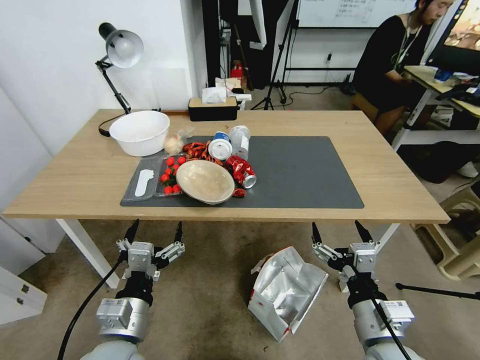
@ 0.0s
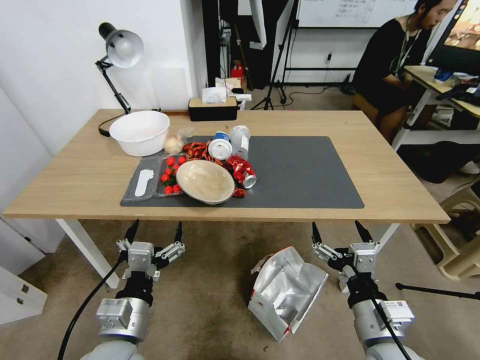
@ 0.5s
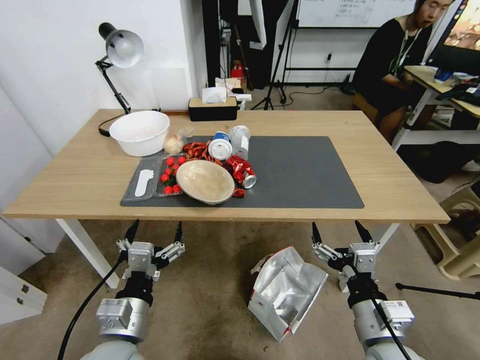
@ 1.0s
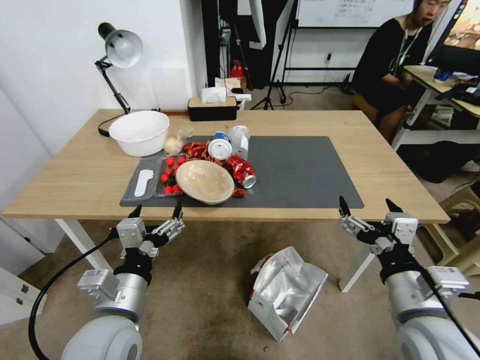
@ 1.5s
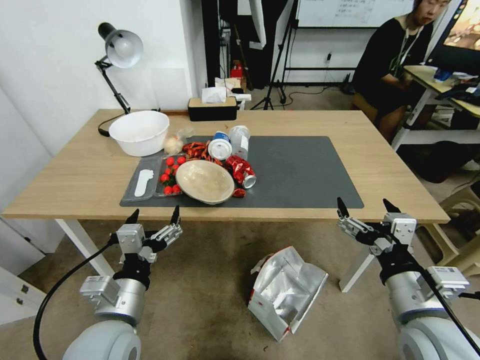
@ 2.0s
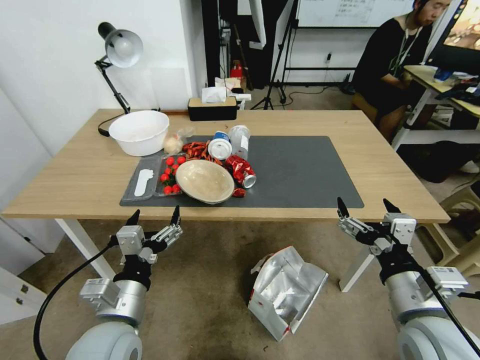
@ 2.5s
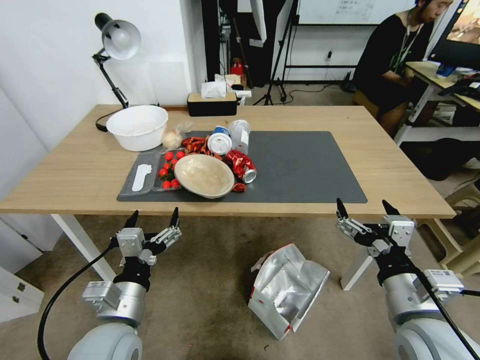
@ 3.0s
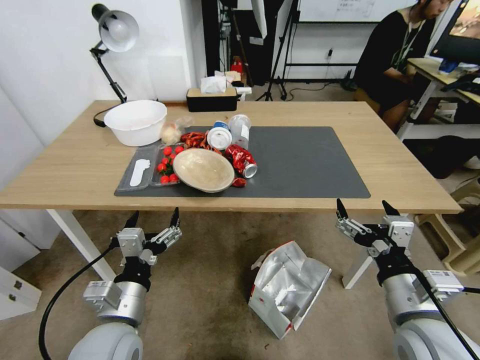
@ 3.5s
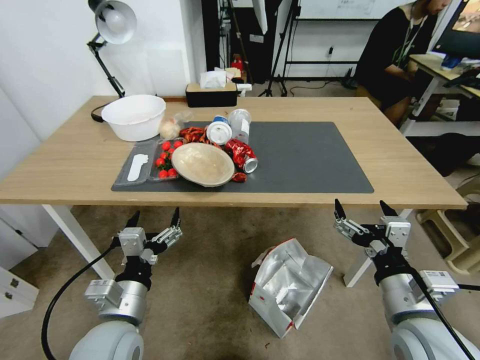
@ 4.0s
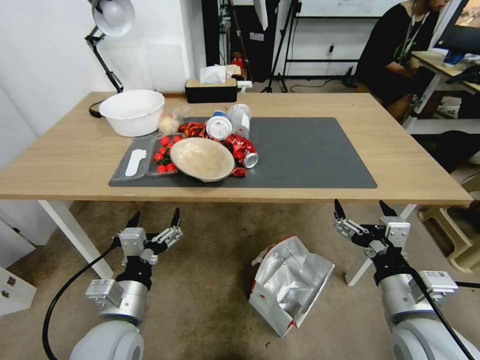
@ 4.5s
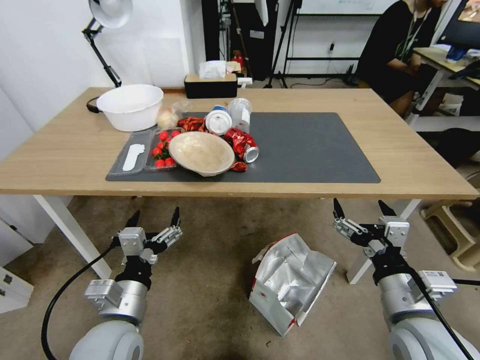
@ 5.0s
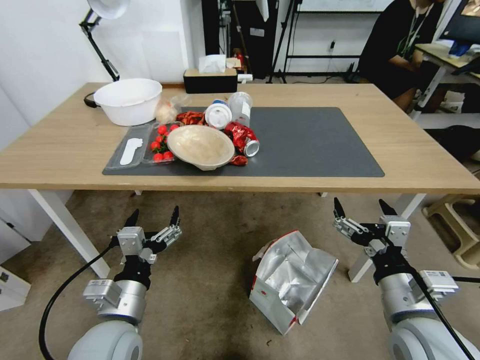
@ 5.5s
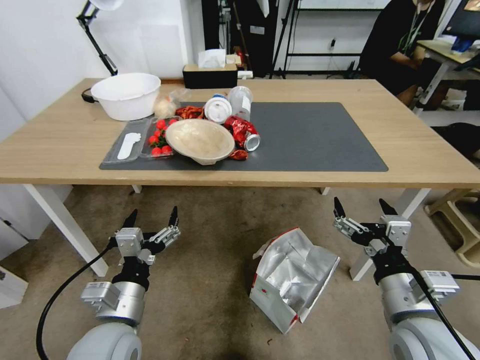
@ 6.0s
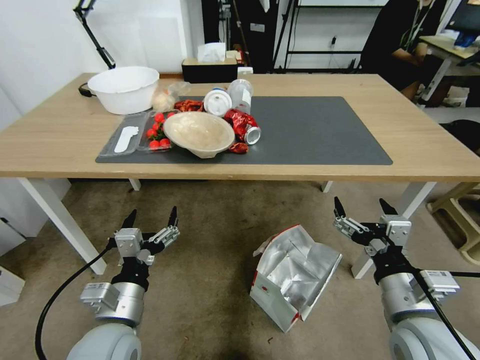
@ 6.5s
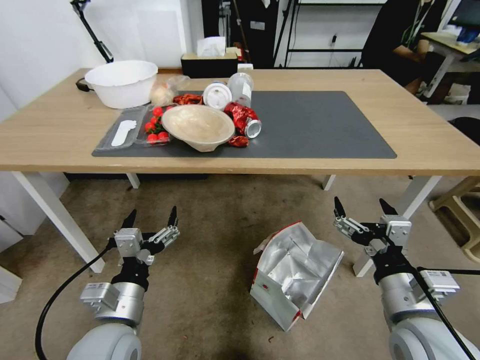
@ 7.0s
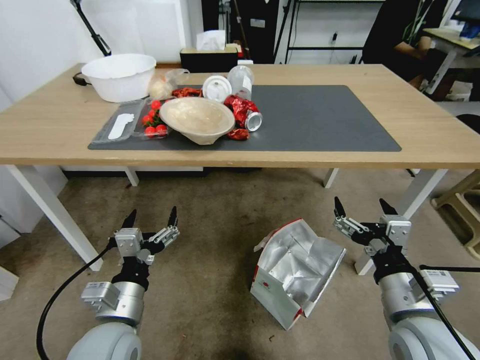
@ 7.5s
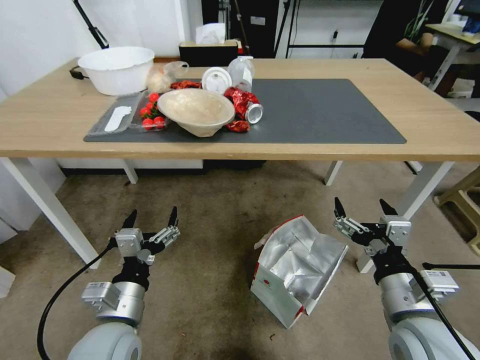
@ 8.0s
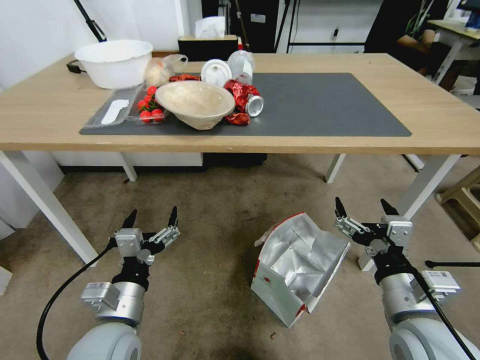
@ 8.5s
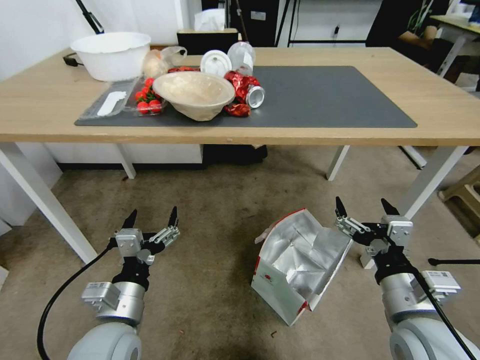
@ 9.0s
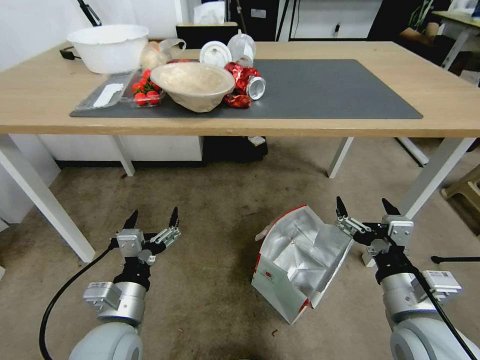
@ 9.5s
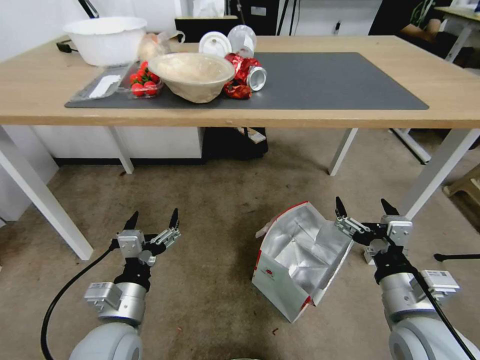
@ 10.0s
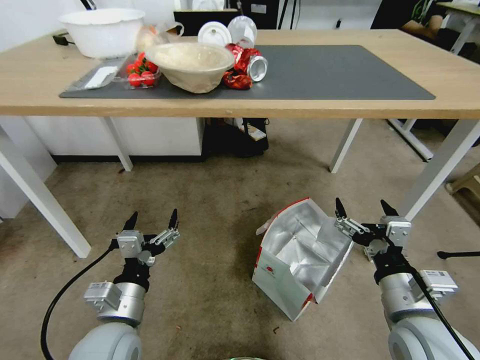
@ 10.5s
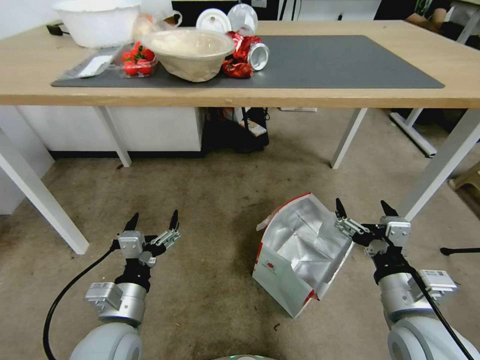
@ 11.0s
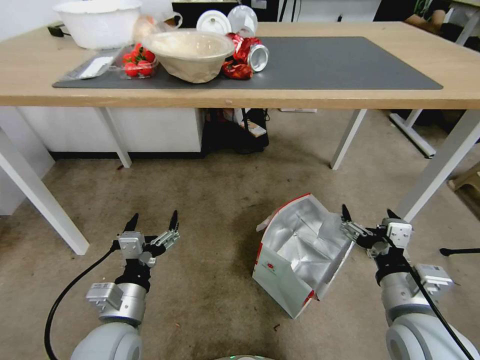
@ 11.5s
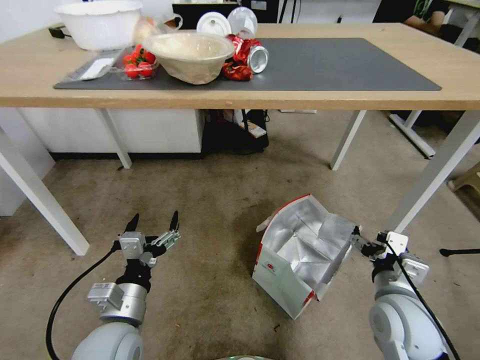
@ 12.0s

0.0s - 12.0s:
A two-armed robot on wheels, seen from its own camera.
Task of the whole recording: Pick up the food delivery bag from the floor and place it on the table.
10.0s - 12.0s: The right gripper ends up about 5 cm from where it was.

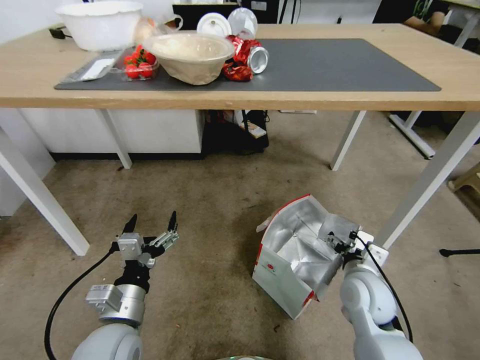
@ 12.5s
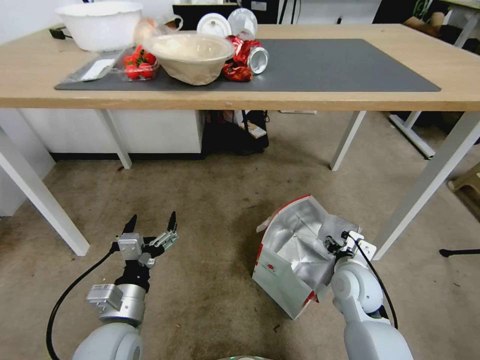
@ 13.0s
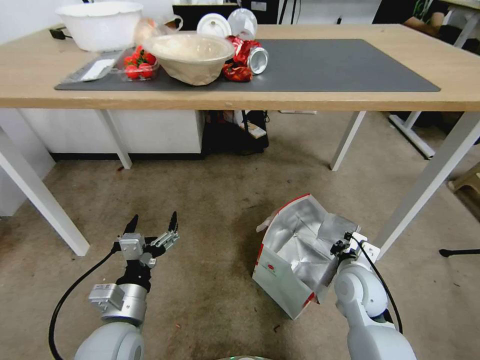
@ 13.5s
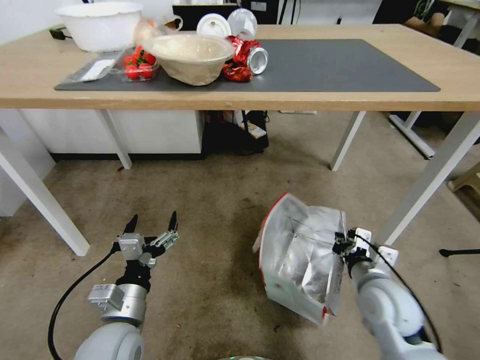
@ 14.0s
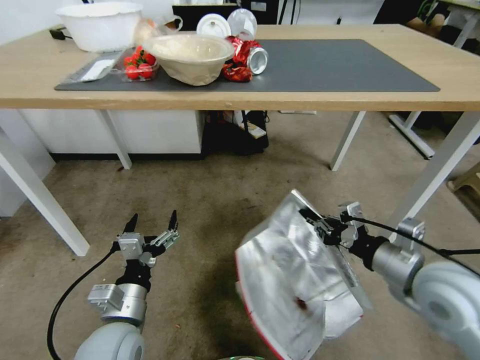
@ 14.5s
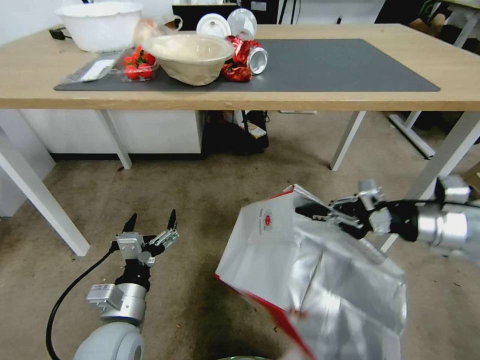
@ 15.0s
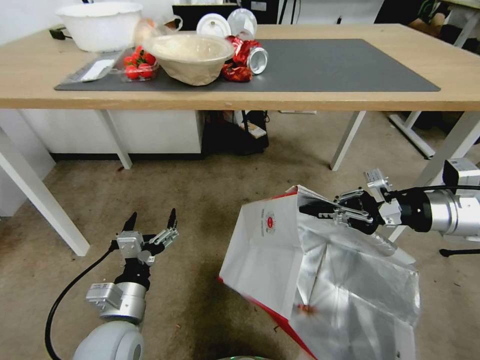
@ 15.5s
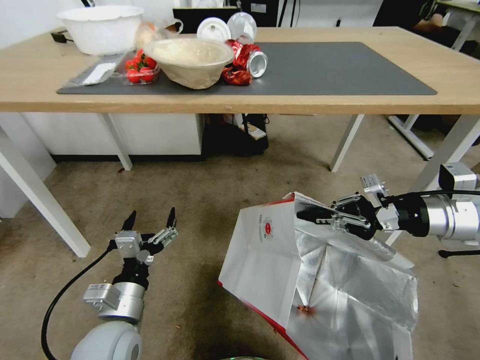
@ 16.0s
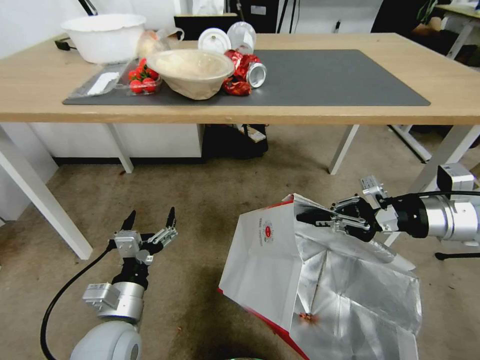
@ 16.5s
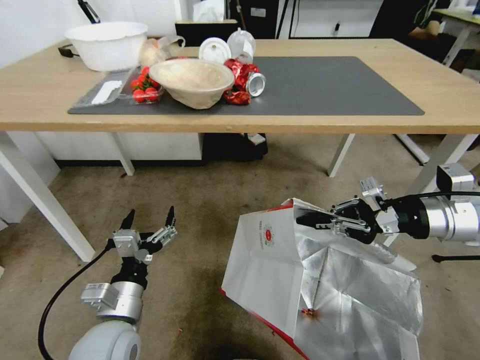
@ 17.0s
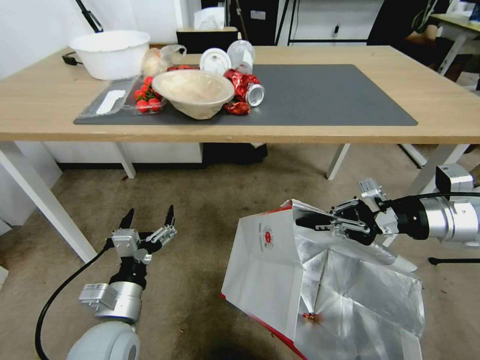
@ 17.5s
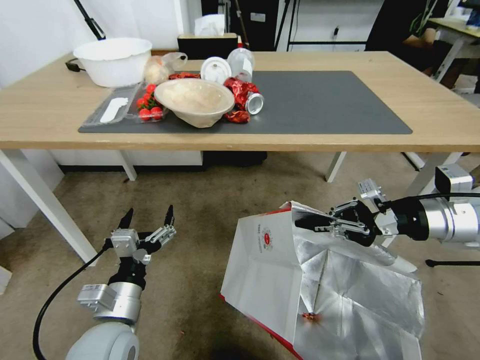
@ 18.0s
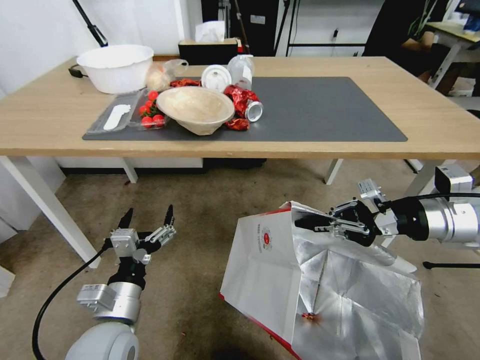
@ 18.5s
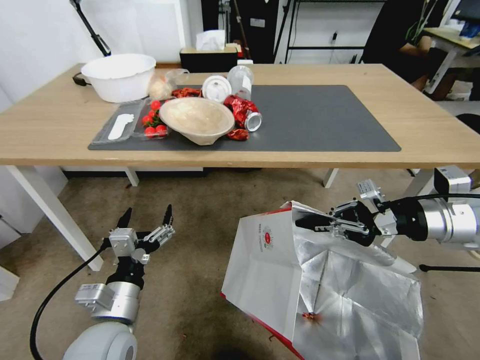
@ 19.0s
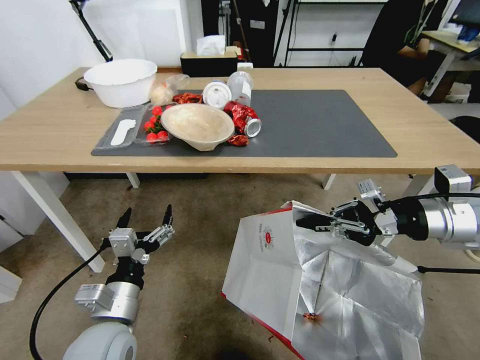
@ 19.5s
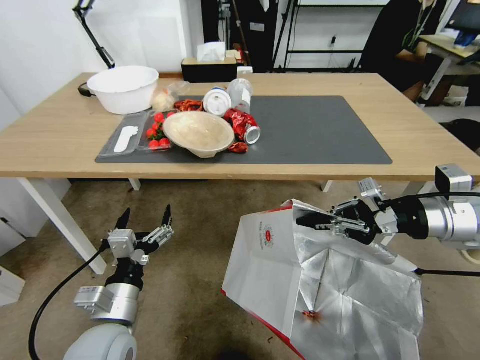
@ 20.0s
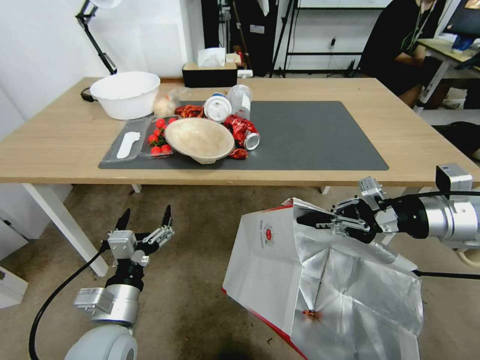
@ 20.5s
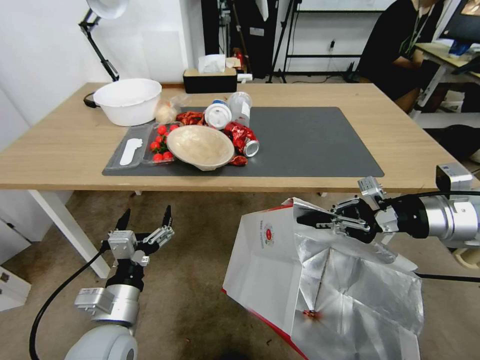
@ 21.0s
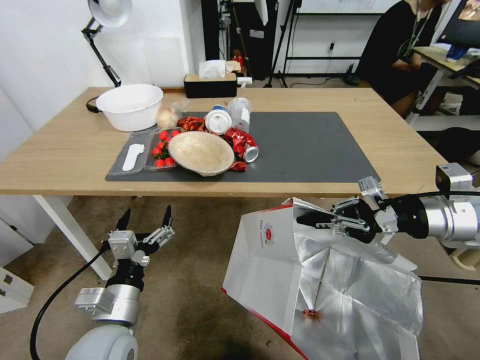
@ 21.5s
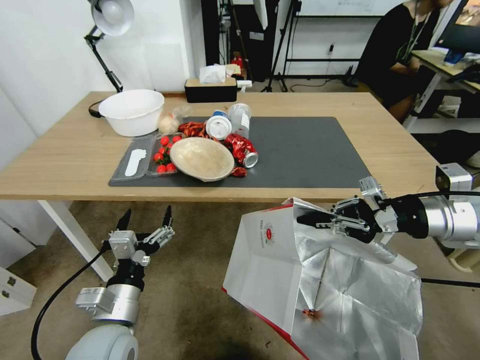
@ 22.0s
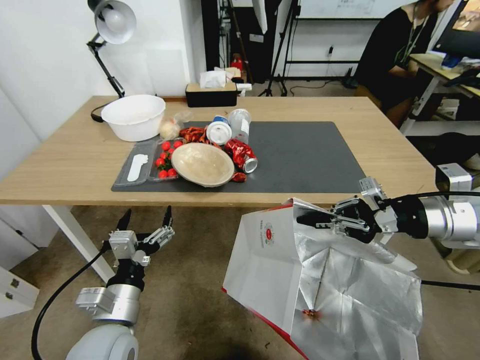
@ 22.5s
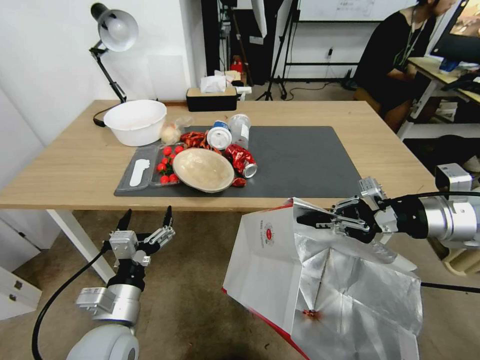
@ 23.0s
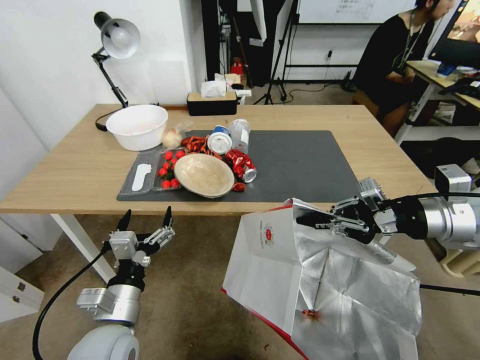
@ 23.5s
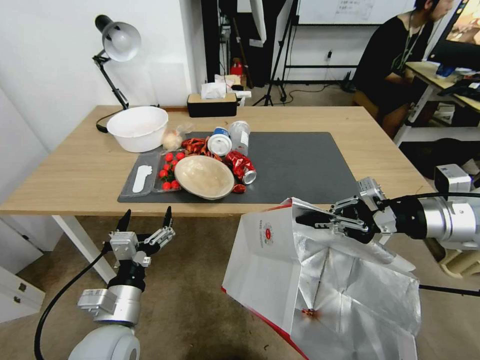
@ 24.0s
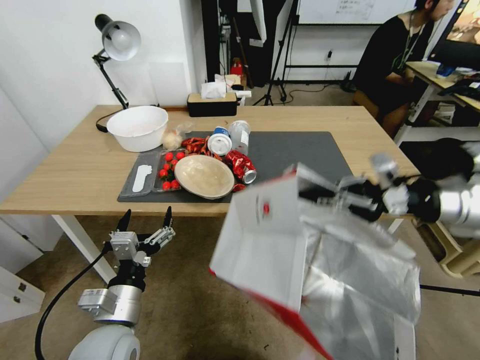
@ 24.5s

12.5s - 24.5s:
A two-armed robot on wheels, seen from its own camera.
Task of the whole recording: Pick up the food delivery bag from the floor and place it on the table.
12.5s - 14.5s: The right gripper goes roughly 15 cm upward, and closes up.
14.5s - 16.5s: The right gripper is displaced forward, upward and to the right by about 15 cm.

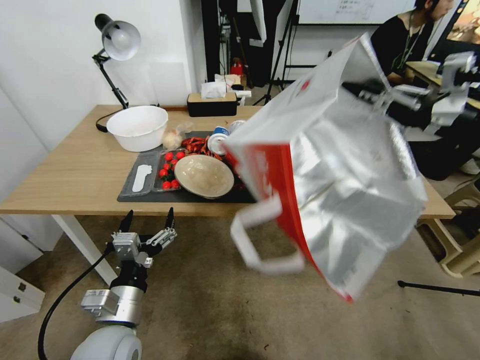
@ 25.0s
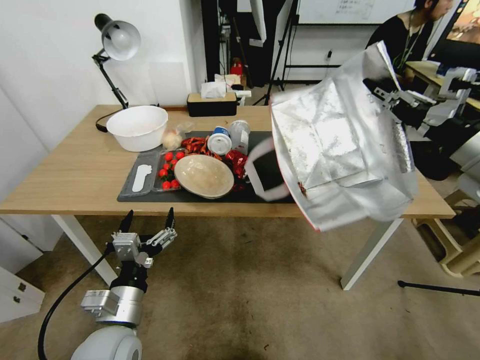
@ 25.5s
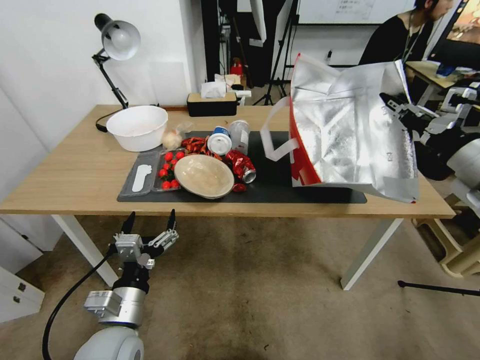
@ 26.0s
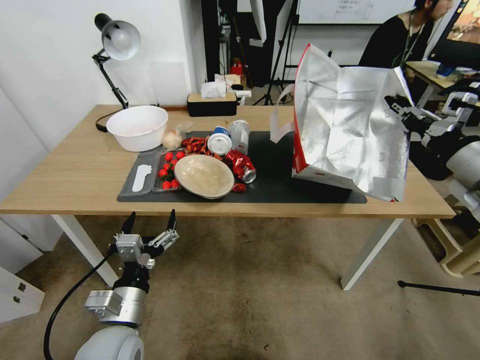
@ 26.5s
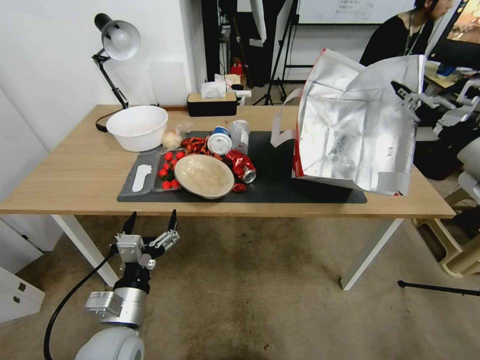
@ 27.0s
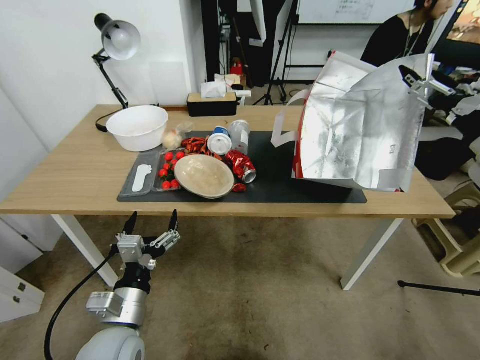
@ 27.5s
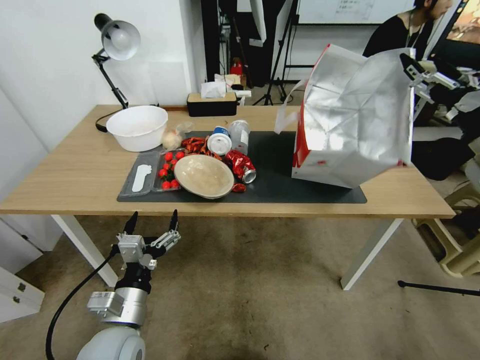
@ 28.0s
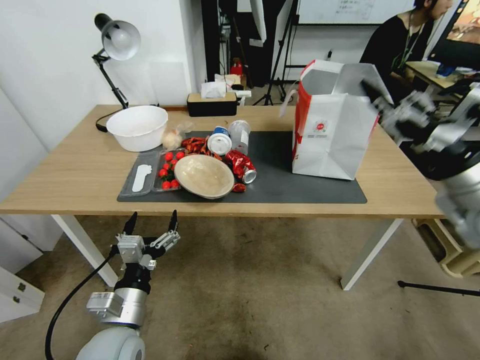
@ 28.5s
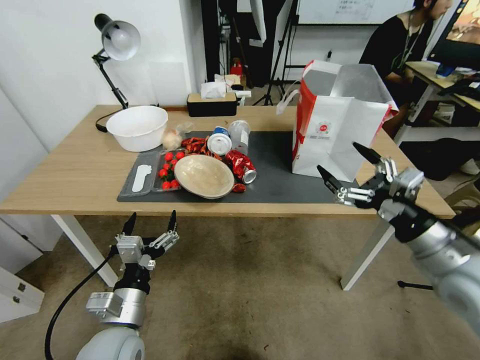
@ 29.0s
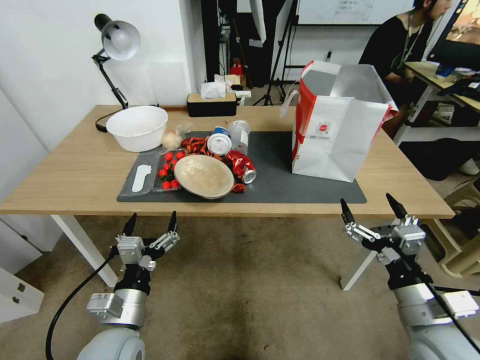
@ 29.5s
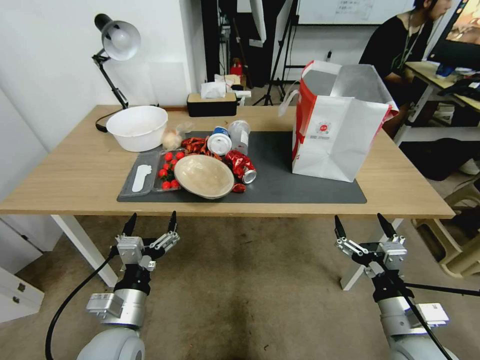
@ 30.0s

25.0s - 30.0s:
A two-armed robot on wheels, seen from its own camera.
Task of the whole recording: Pick up the food delivery bag from the floor and place it on the table.
25.0s - 27.5s: The right gripper heads downward, covering about 5 cm, and opens up.
27.5s - 30.0s: The right gripper moves downward, backward and to the left, roughly 30 cm.
